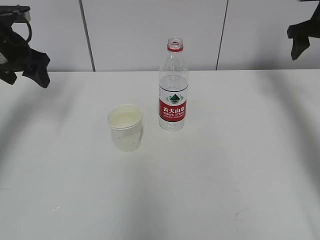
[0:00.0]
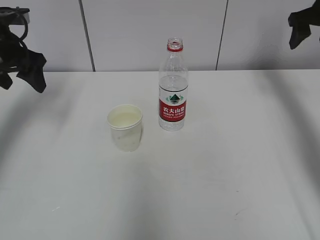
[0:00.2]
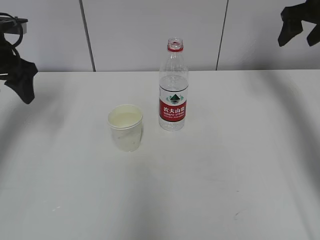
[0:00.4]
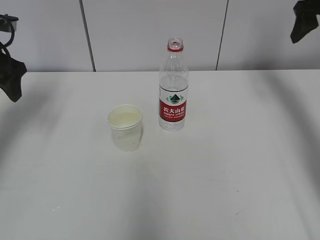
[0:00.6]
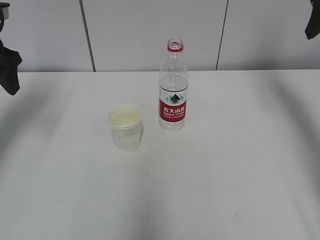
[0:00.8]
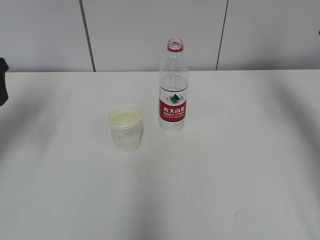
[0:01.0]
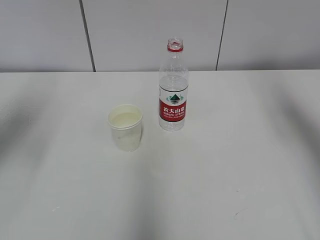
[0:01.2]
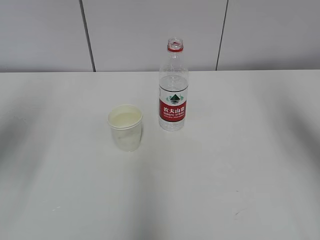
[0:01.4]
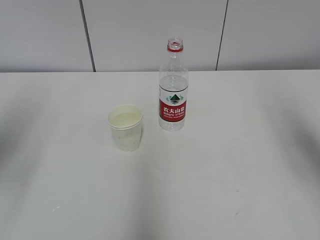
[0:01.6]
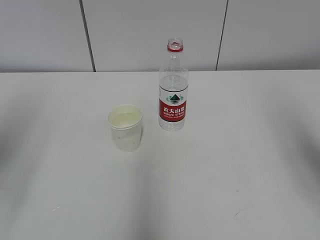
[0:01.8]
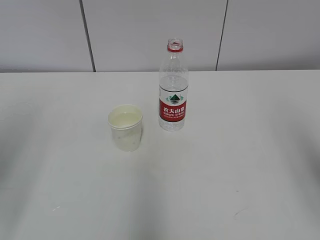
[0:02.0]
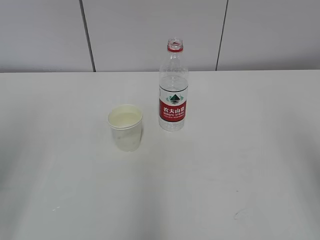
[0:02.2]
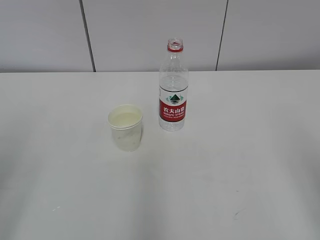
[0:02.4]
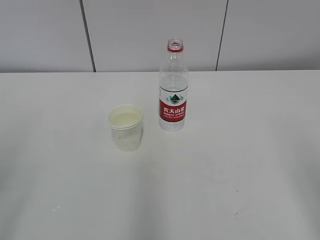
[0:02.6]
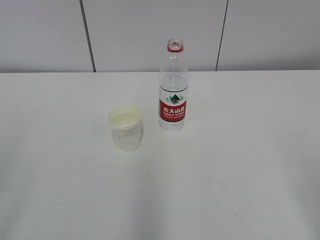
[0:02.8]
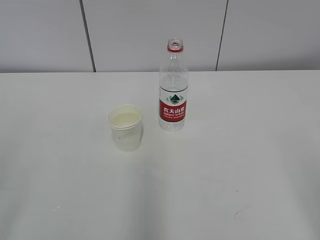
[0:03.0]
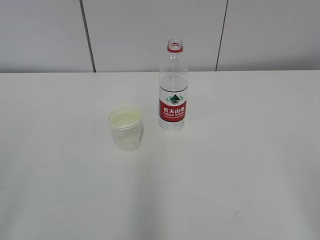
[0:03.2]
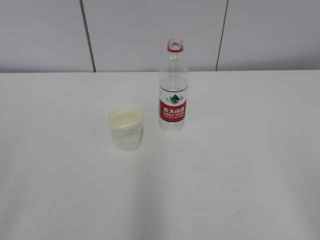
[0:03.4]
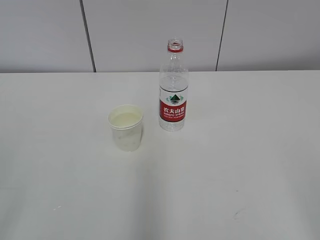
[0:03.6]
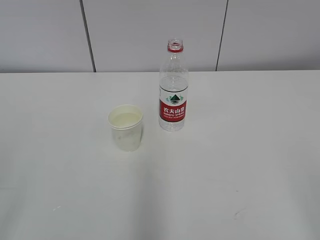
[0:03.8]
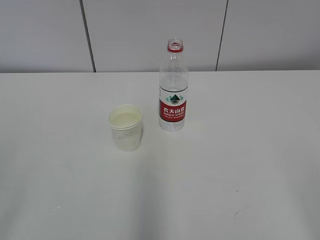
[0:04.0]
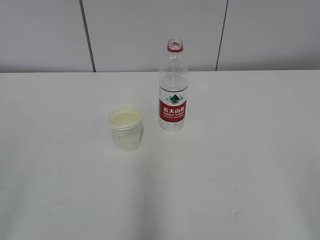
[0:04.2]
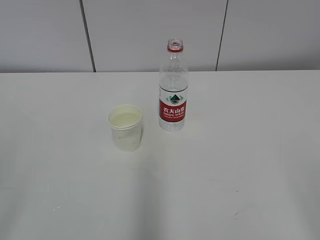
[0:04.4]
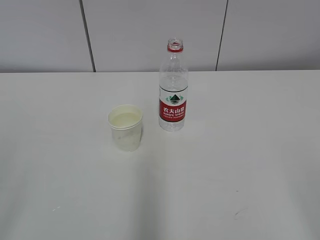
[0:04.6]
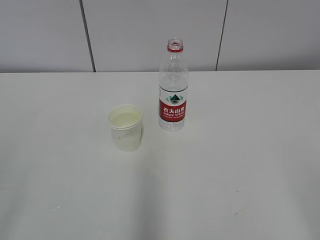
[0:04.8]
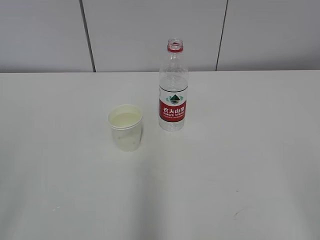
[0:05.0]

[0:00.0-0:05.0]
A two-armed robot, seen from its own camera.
0:00.0 to 0:01.6: The two grippers go some 25 cm backward.
0:01.6 to 0:03.4: The two grippers go approximately 20 cm backward.
0:03.4 to 0:05.0: Both grippers stay about where they are.

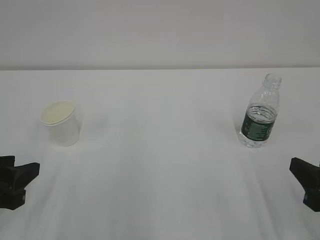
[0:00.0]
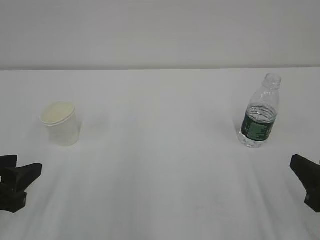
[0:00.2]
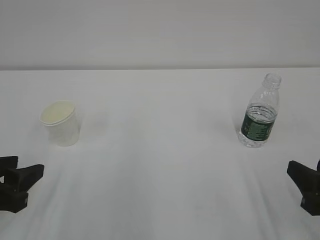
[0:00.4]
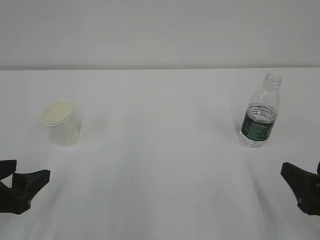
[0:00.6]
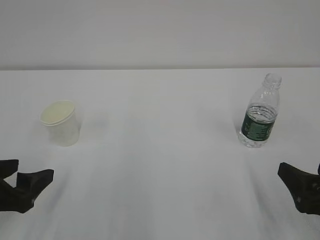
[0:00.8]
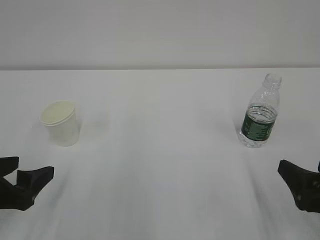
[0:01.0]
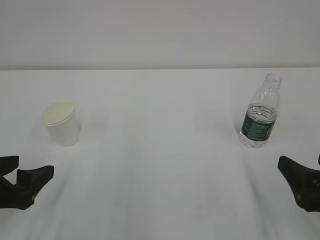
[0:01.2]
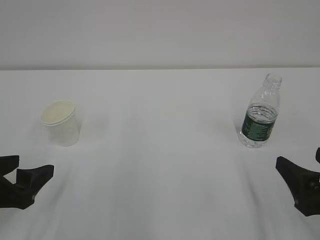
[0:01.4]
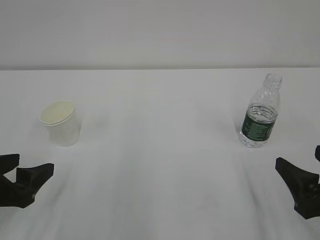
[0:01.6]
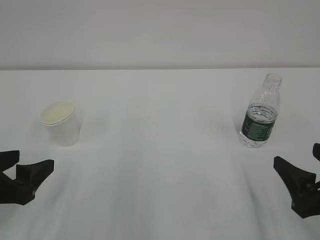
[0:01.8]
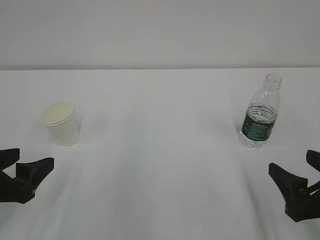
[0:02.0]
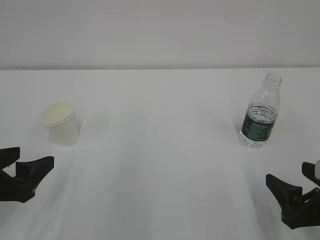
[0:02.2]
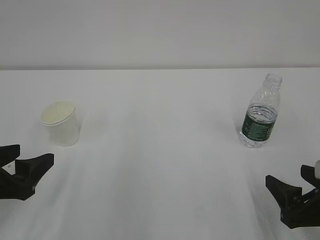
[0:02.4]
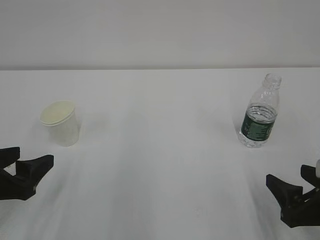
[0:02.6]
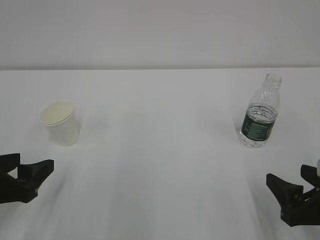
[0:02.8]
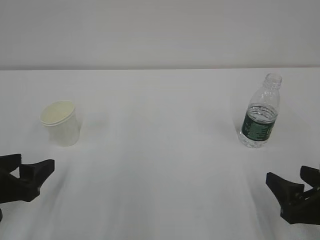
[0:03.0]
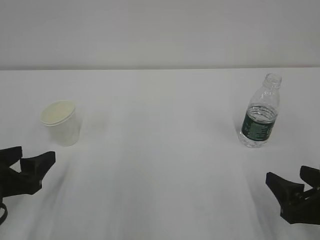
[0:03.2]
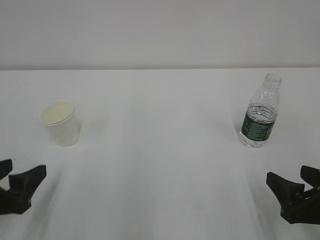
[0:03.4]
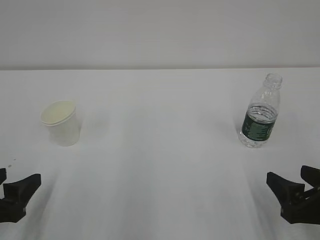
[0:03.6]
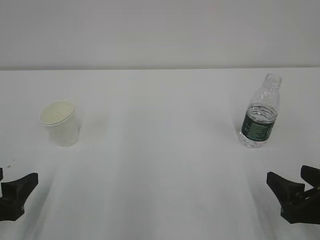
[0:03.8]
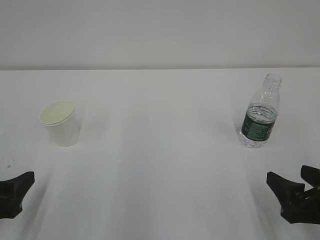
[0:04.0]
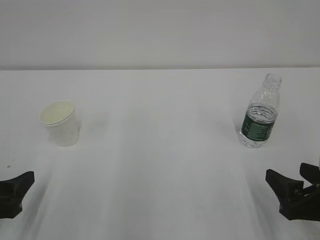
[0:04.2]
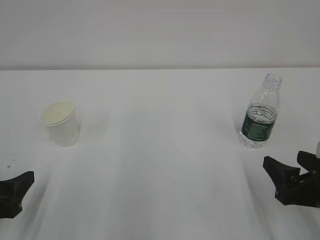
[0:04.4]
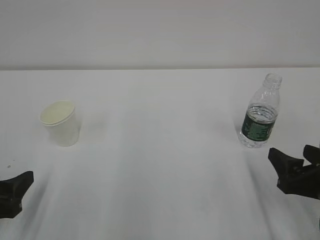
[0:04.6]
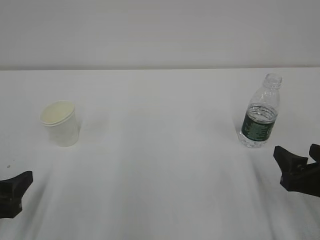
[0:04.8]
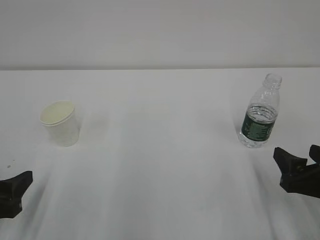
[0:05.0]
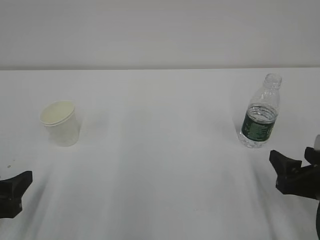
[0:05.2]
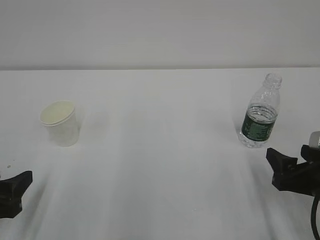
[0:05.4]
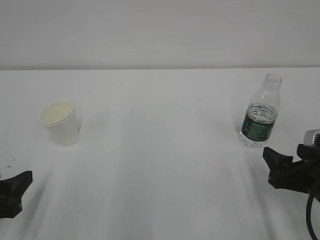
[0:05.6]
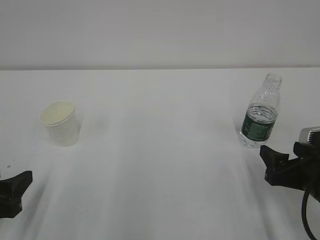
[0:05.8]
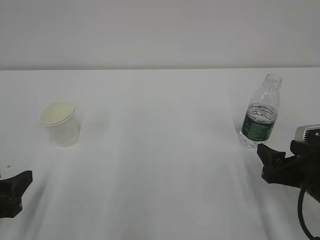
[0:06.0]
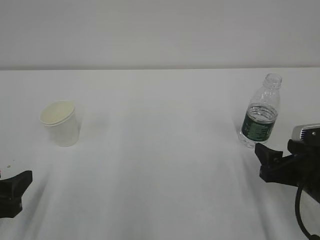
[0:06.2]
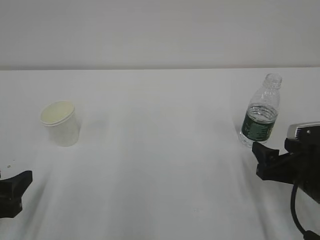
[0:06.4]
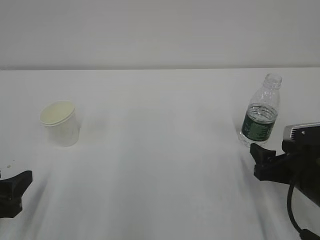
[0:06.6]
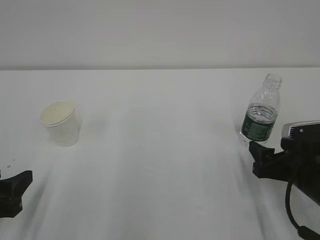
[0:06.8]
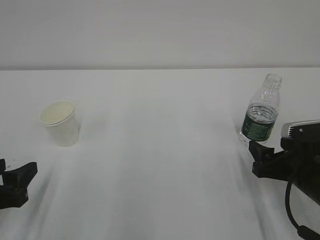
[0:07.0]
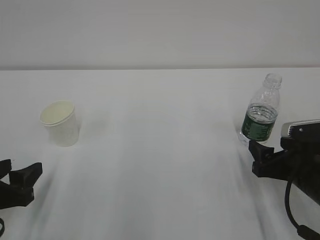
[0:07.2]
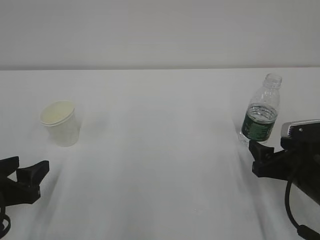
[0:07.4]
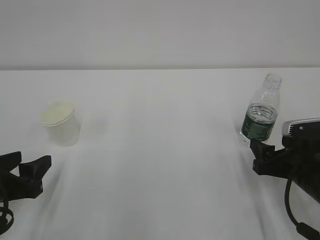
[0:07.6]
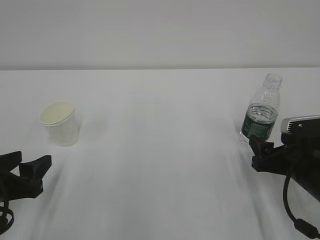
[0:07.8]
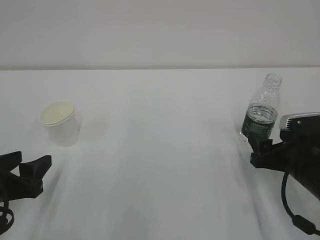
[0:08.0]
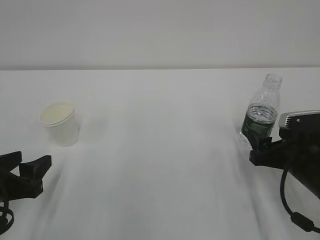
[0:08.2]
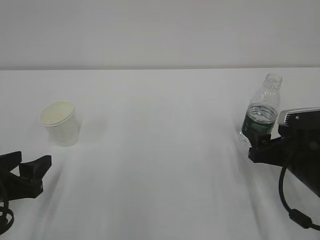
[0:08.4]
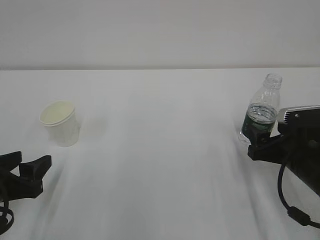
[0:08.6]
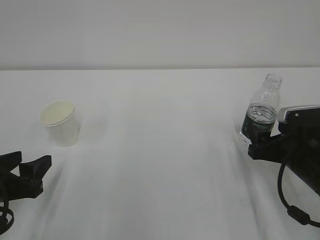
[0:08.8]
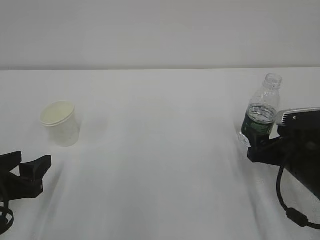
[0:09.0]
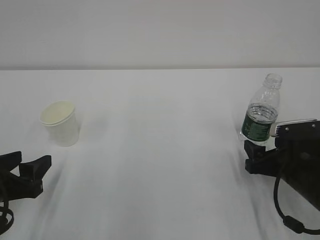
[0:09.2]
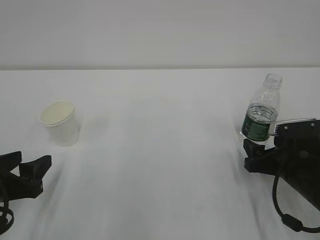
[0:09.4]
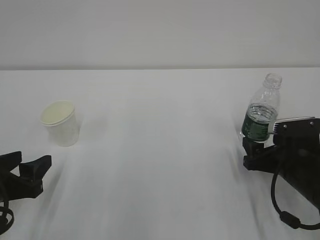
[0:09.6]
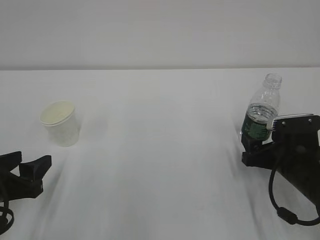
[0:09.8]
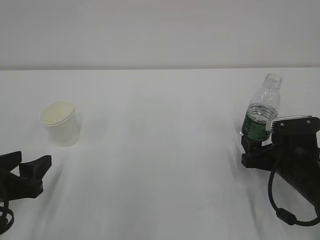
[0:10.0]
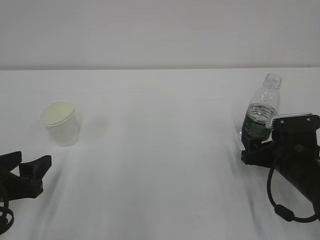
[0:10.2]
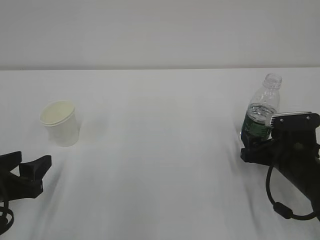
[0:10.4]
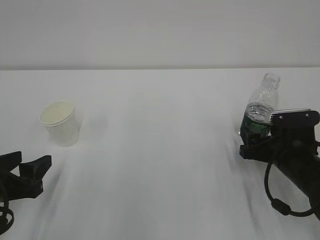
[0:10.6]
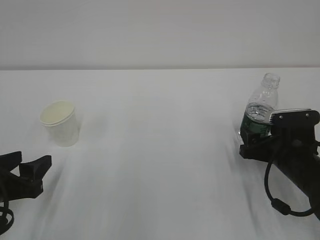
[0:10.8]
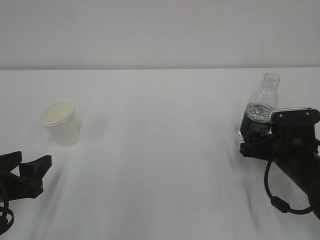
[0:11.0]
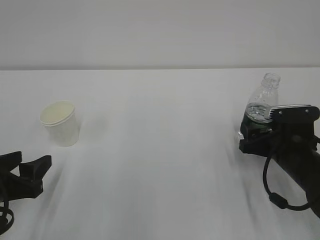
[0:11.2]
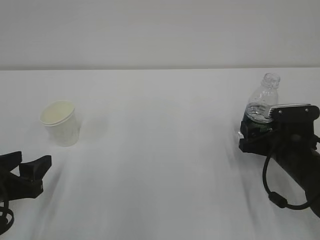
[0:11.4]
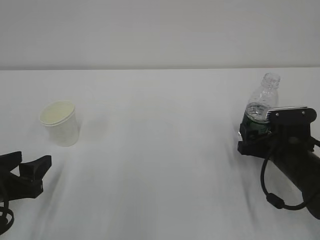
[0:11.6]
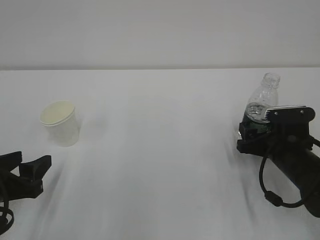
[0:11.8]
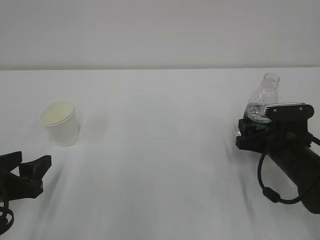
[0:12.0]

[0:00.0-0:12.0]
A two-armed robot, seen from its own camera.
0:00.0 to 0:01.6: The left gripper opens. Meanwhile the right gripper opens.
0:01.6 to 0:04.4: The grippers make only small movements.
0:04.4 to 0:06.0: The grippers stay close to where they were, moving slightly.
0:06.0 to 0:09.0: The grippers stay close to where they were, moving slightly.
0:09.0 to 0:12.0: The grippers move only a little.

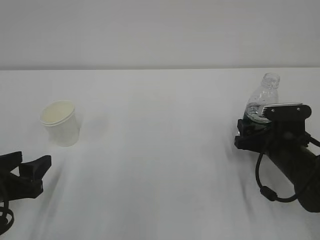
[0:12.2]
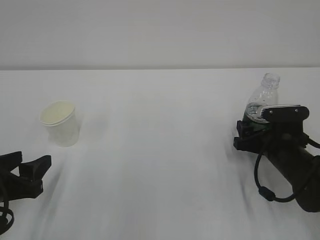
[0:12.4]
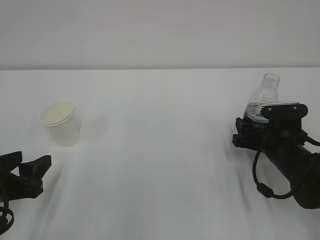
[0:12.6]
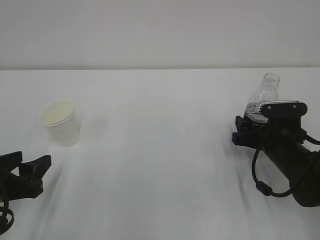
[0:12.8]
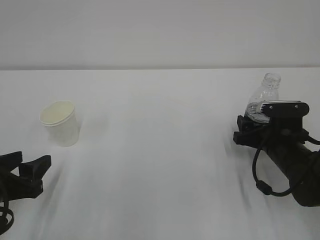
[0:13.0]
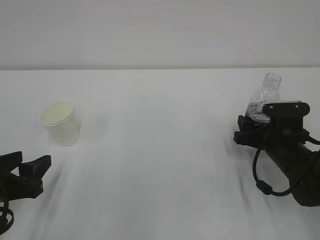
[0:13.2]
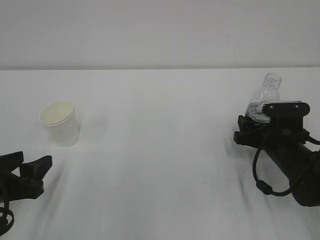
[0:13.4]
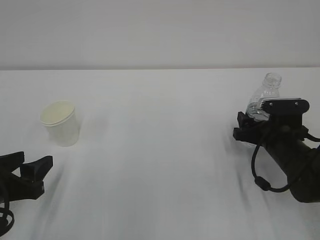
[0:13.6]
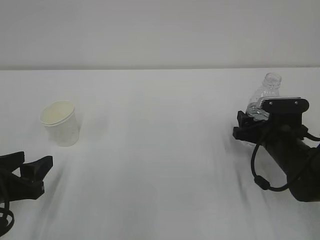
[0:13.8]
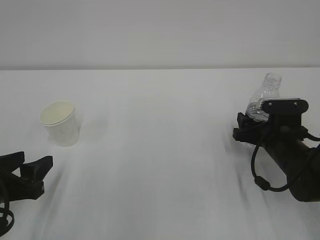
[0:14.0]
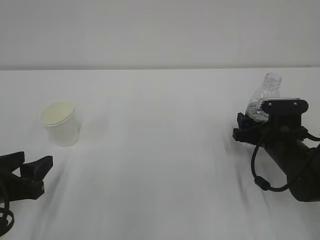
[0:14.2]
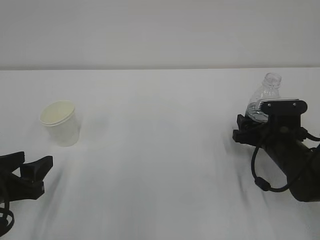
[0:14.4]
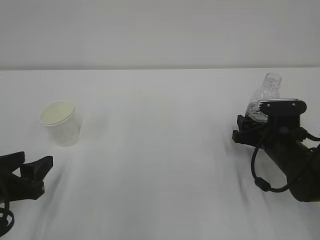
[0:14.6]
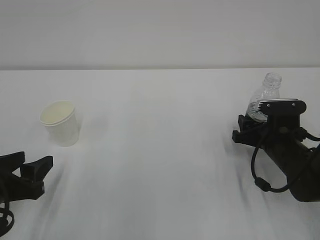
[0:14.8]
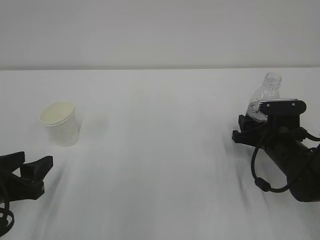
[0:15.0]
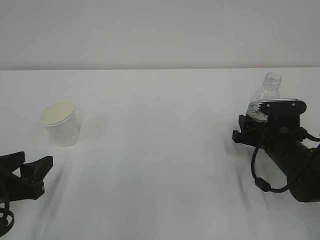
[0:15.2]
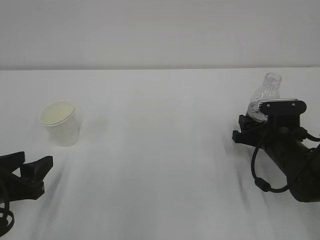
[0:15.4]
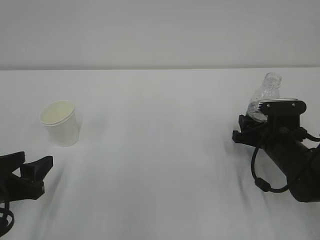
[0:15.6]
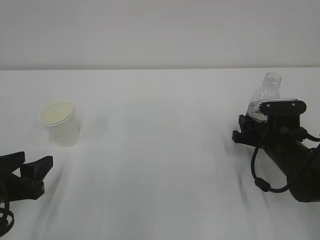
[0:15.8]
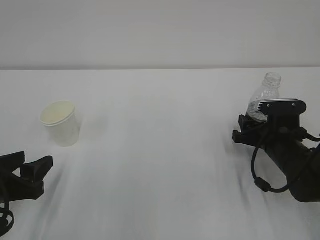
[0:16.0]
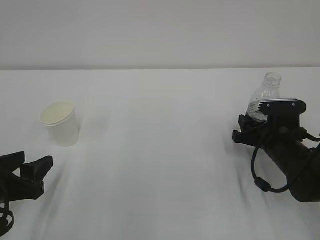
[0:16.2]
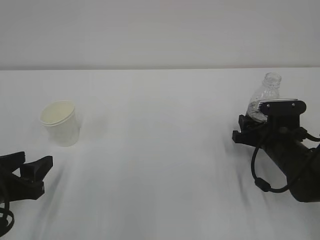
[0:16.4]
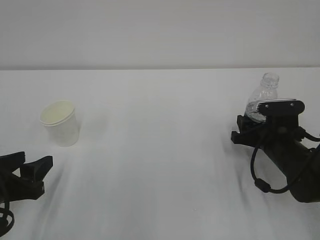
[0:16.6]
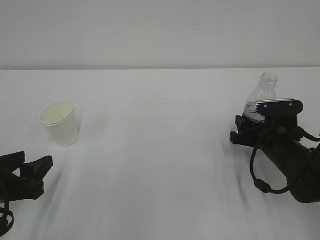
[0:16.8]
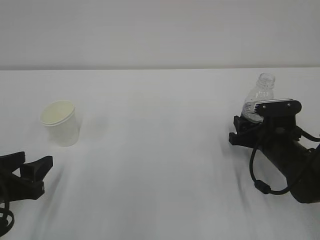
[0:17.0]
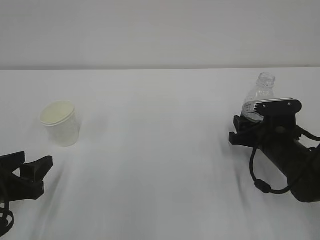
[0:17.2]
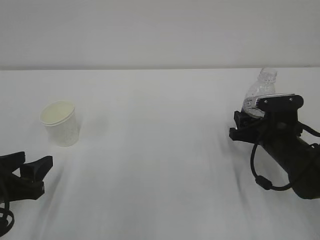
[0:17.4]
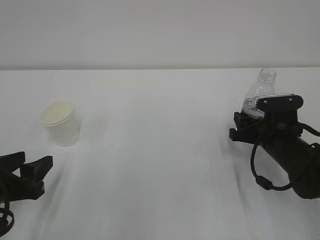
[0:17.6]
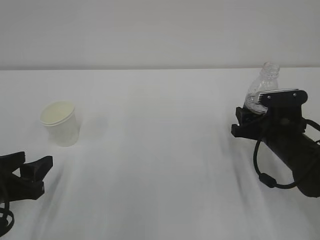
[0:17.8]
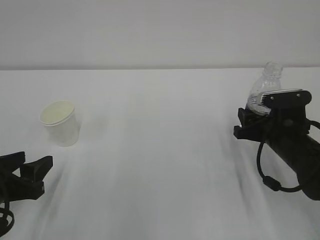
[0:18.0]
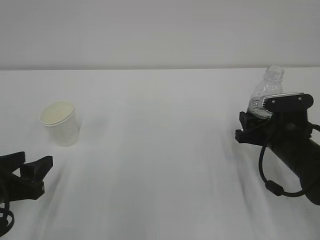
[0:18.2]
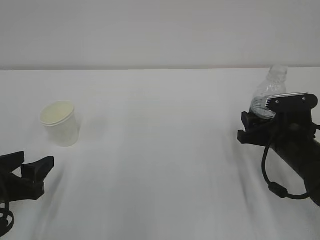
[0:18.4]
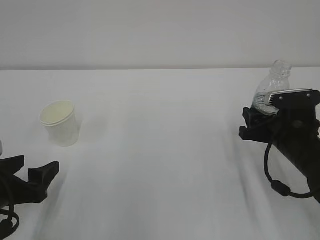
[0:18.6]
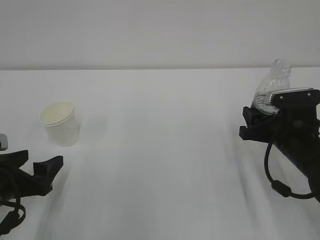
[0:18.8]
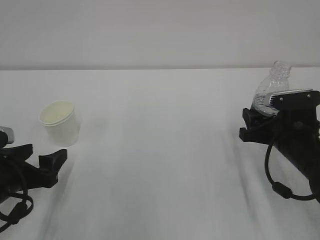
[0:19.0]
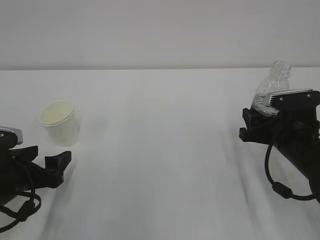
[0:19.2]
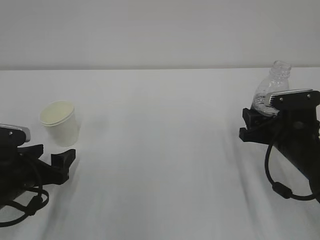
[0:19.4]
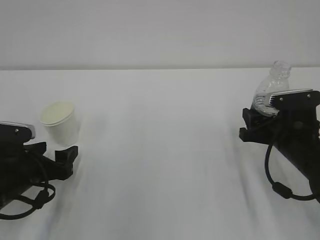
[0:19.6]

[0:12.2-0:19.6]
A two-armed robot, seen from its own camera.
0:12.2 to 0:13.6: The grippers move only a little.
0:13.6 to 0:15.2: The right gripper closes its fingers.
0:15.2 to 0:16.6: Both grippers stay put.
0:16.6 to 0:18.2: The grippers move only a little.
0:18.2 to 0:19.6: The left gripper moves forward, approximately 5 cm, and opens up.
